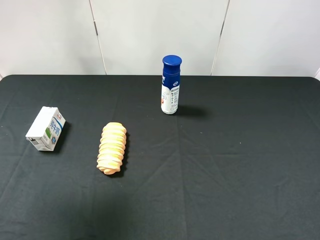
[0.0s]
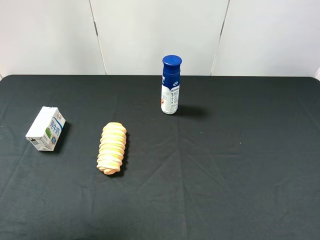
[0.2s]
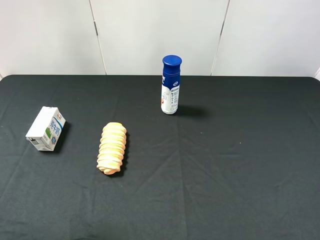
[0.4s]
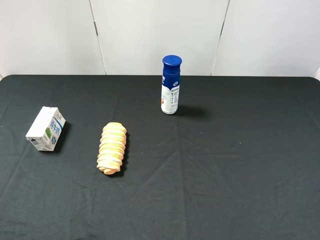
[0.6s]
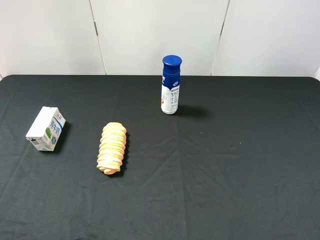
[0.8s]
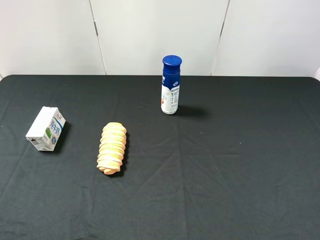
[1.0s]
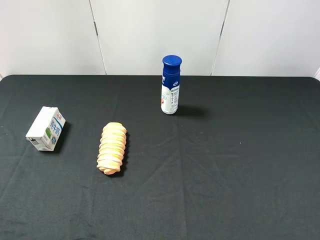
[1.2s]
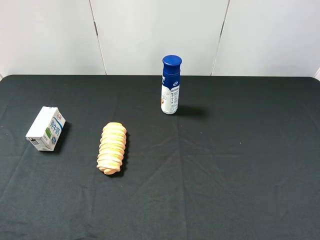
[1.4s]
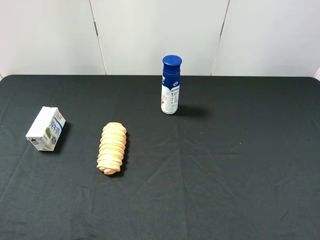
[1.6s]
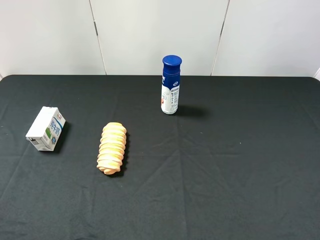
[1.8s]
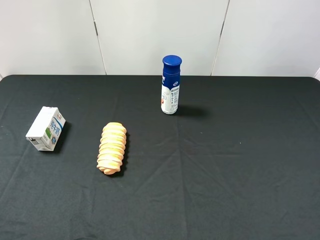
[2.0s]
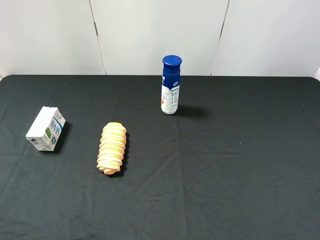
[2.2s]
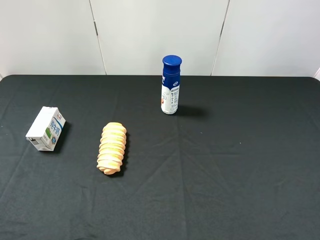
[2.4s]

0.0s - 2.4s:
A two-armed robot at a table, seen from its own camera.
Task of the whole recording: use the right gripper to pick up the item and transfer it from the right gripper to the left gripper.
0.0s - 1.2s: The left gripper goes roughly 20 cm backward and downward.
1.2s - 2.4s: Neither gripper changes place.

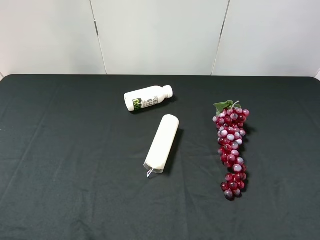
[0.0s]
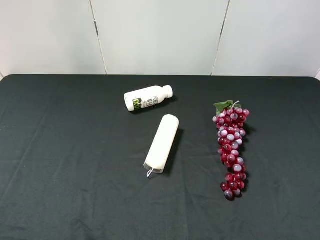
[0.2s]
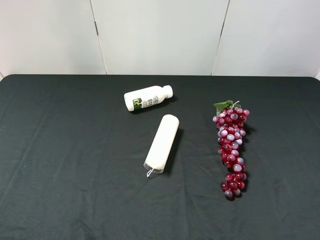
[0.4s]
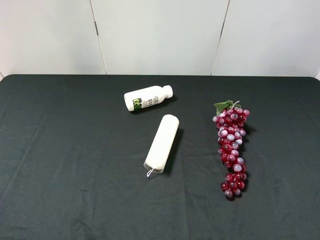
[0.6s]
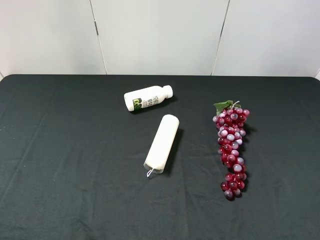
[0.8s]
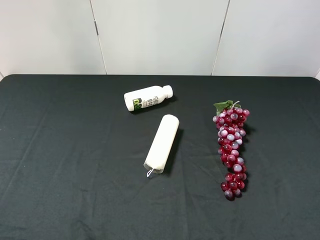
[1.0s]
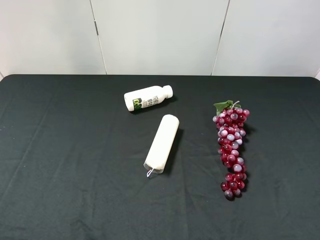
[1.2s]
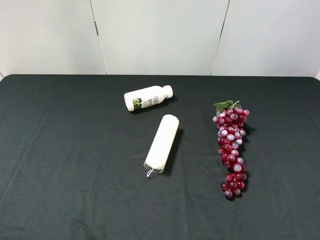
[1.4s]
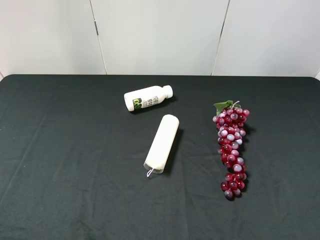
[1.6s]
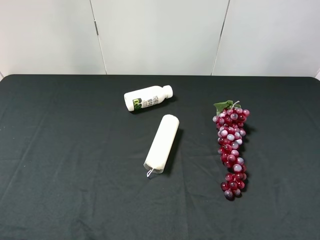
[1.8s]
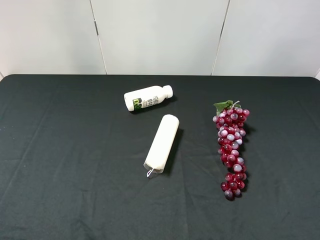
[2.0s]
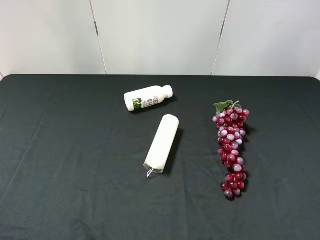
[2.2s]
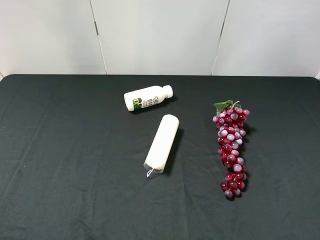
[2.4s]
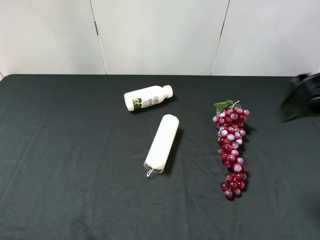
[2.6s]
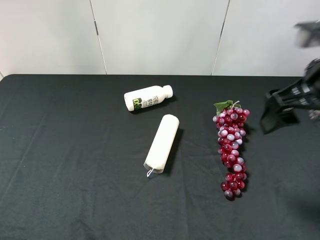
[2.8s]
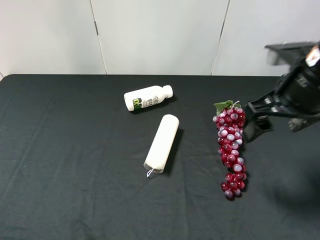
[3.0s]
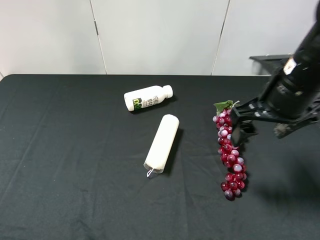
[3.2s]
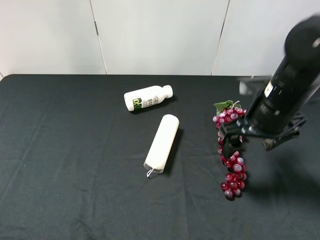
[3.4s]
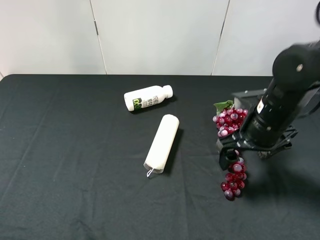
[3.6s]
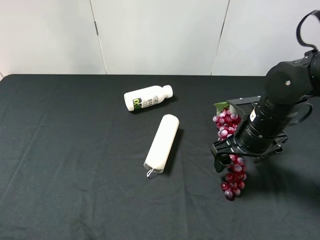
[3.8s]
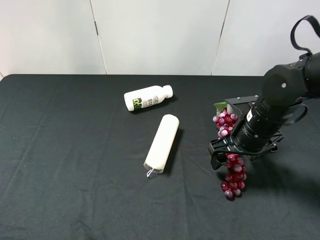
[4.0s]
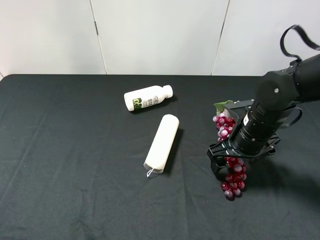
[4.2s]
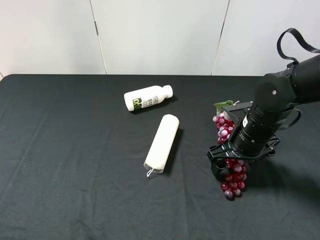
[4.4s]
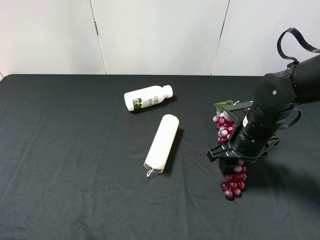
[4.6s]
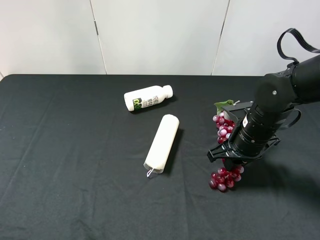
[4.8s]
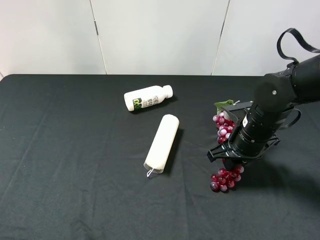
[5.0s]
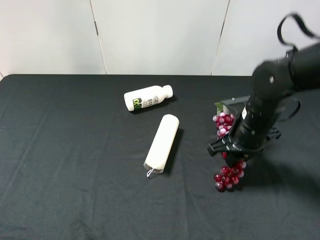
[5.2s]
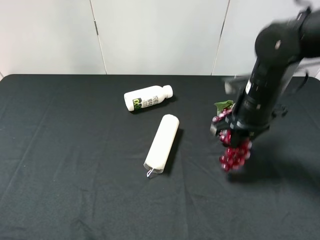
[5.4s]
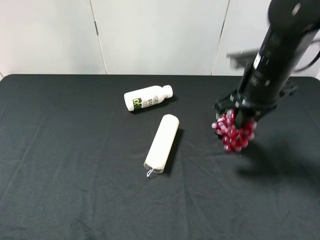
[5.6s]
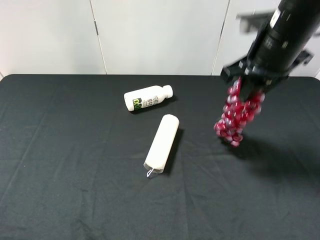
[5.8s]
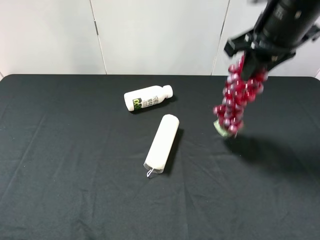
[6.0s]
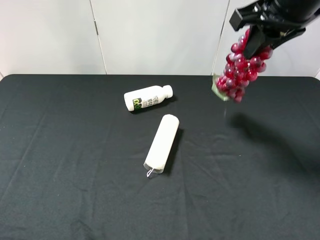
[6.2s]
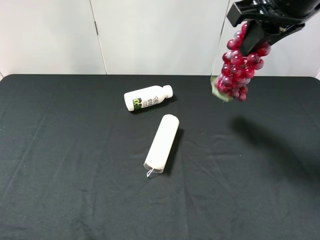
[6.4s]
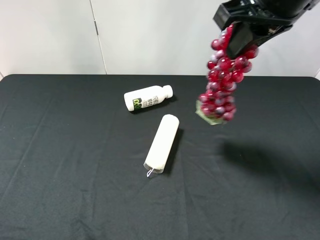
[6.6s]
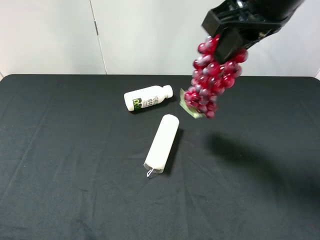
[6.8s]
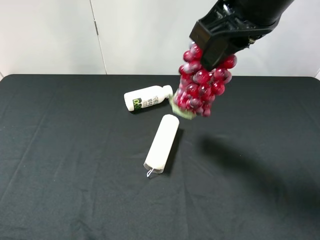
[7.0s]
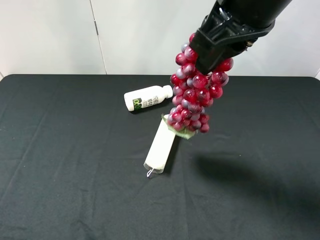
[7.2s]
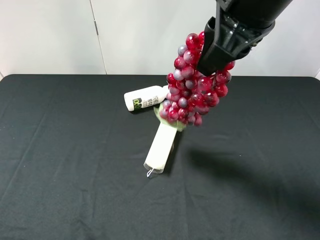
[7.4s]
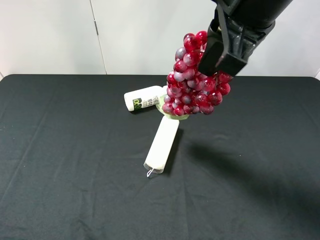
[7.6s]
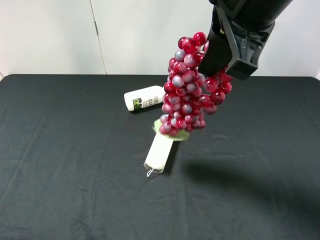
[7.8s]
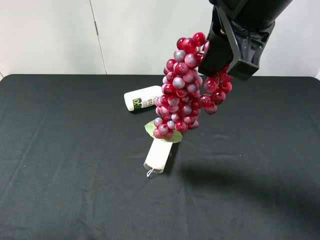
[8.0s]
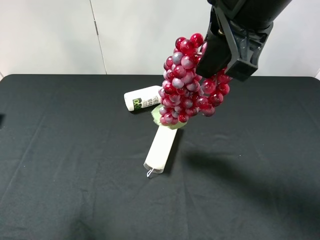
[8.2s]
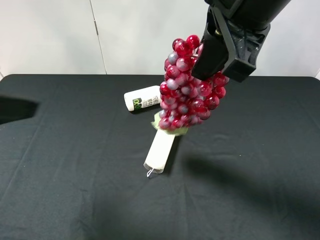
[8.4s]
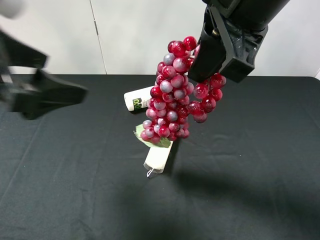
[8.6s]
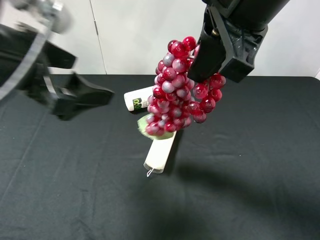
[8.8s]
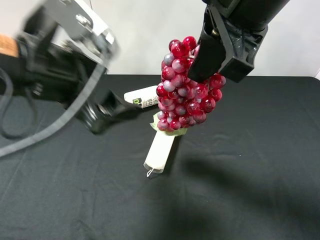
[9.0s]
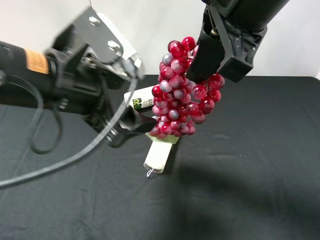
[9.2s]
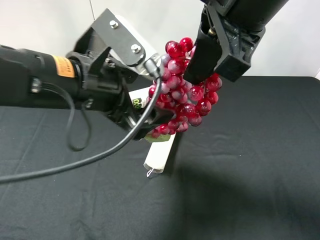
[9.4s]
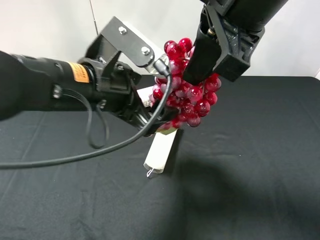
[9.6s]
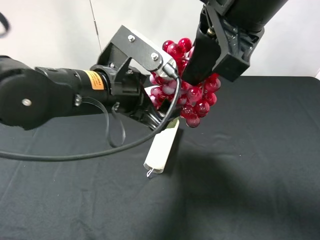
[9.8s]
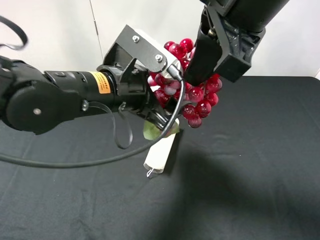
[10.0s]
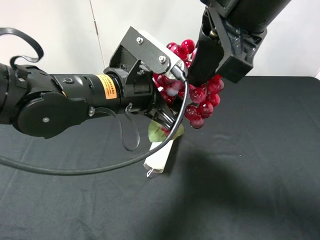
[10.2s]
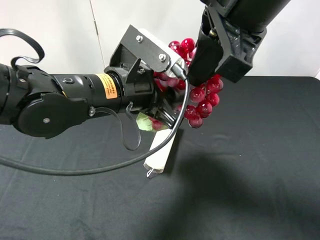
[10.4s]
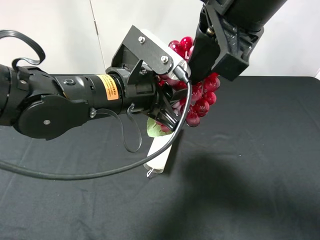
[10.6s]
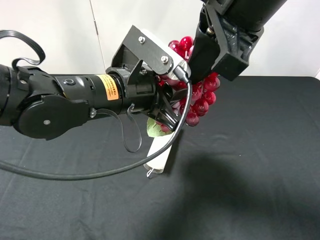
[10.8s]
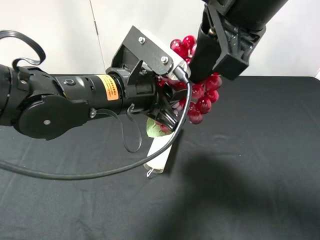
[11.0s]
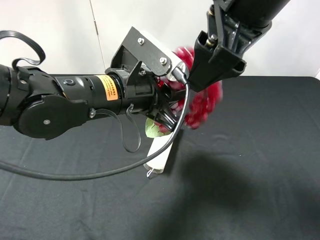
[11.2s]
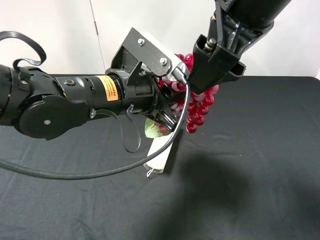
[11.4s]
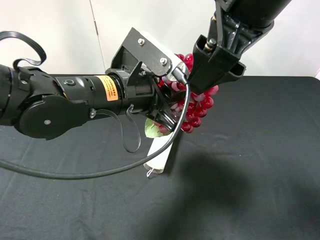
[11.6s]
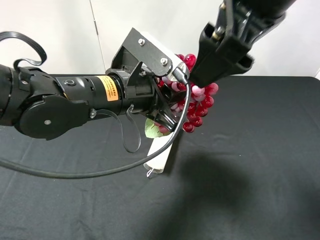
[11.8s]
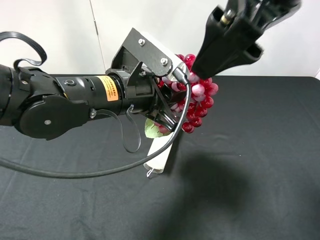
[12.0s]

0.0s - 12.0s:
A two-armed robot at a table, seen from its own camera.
Task of the whole recording: use the right gripper to pick up the item and transfer it from the right gripper to the left gripper.
Step, 0.0s - 5.0s: Use the right gripper to grab the grape on the right side of the table.
Step, 5.2s - 11.4s: Pass the grape to the left gripper.
0.0s - 1.6s: Neither gripper changes place.
1.6s - 3.0s: The right gripper moves forward and to the left, approximately 25 cm.
3.0s - 4.4s: The right gripper is displaced downward by about 15 cm.
4.4s - 6.0s: The right gripper heads upward, covering approximately 20 cm, and closes up.
6.0s - 7.6s: The right gripper is displaced to the left and backward by approximately 10 cm.
7.6s - 9.0s: The left gripper travels to the right and forward by about 25 cm.
9.0s - 10.4s: The left gripper shifts some 10 cm to the right and downward, and closes up.
10.4s - 12.0s: The right gripper opens its fingers.

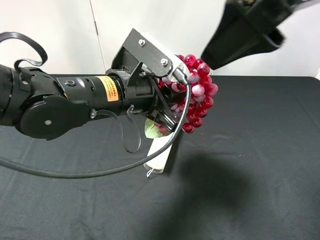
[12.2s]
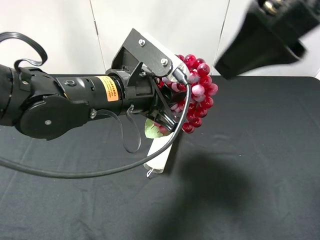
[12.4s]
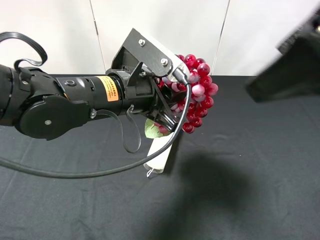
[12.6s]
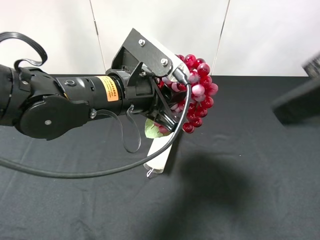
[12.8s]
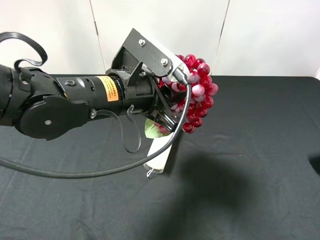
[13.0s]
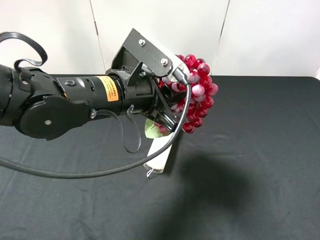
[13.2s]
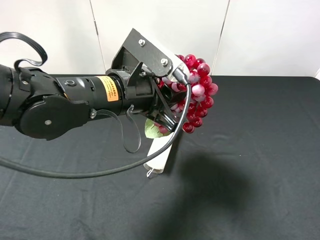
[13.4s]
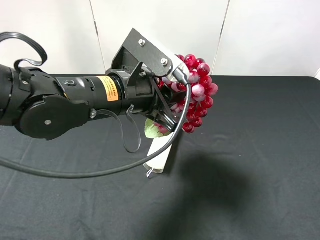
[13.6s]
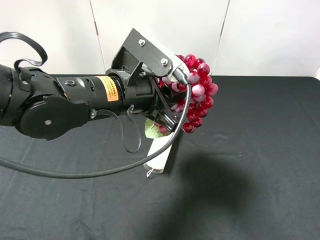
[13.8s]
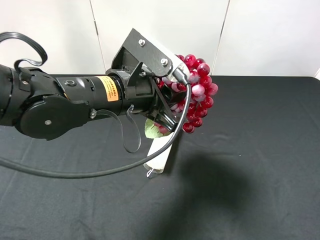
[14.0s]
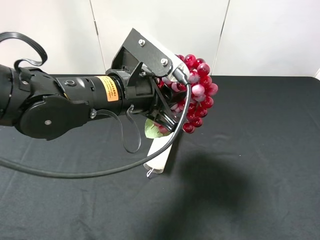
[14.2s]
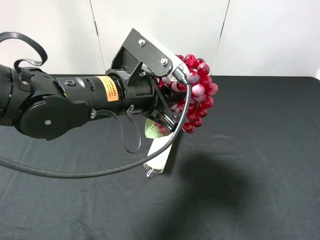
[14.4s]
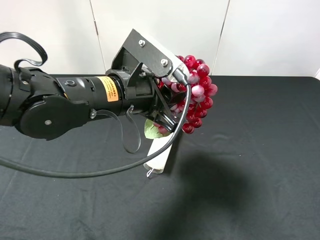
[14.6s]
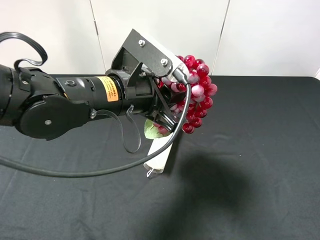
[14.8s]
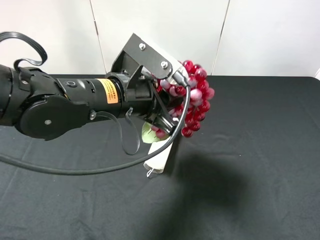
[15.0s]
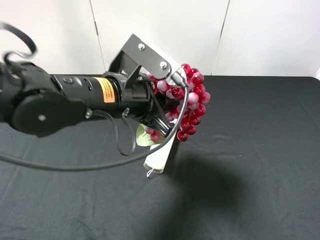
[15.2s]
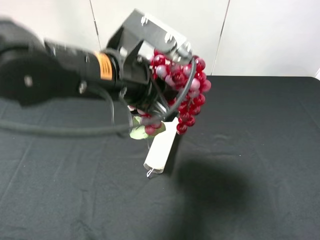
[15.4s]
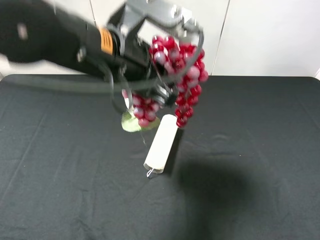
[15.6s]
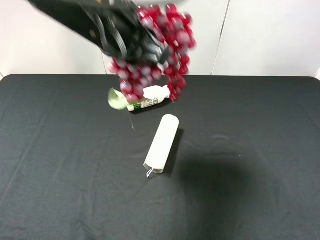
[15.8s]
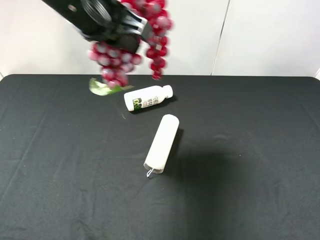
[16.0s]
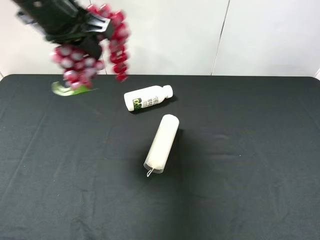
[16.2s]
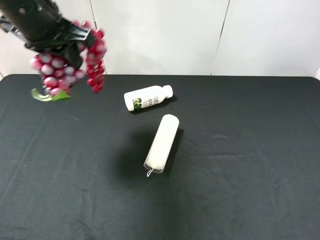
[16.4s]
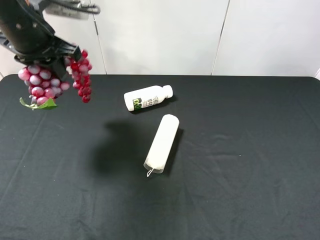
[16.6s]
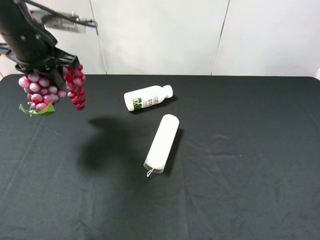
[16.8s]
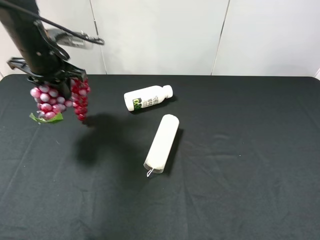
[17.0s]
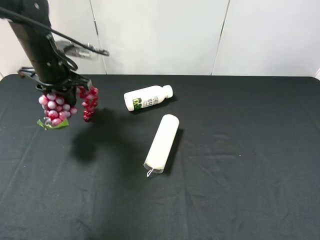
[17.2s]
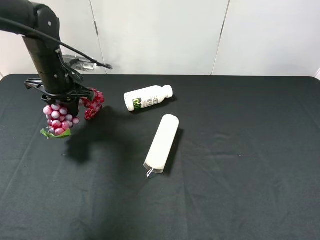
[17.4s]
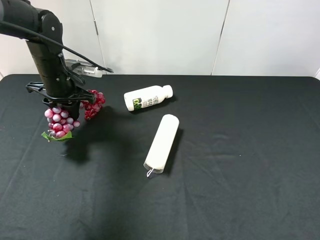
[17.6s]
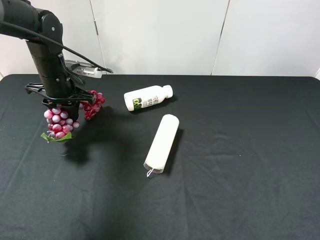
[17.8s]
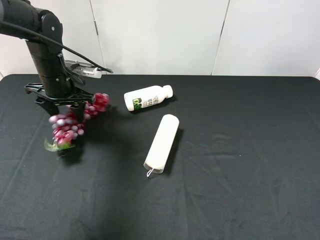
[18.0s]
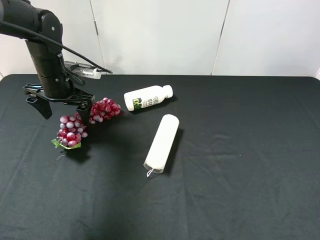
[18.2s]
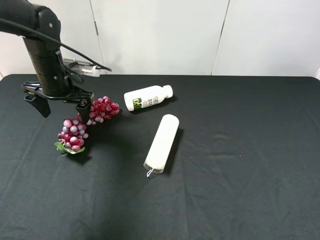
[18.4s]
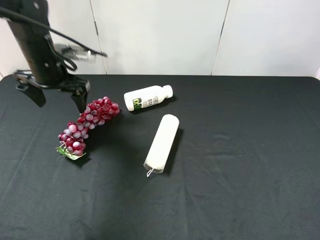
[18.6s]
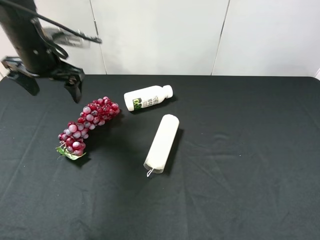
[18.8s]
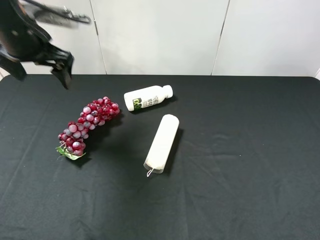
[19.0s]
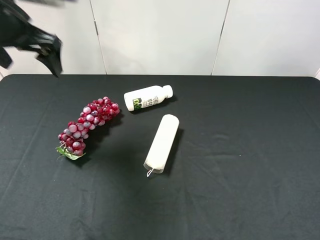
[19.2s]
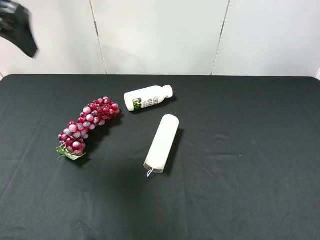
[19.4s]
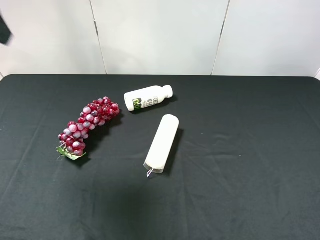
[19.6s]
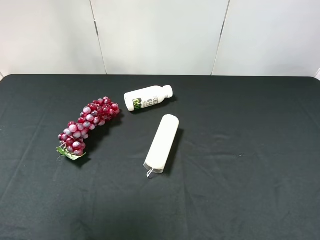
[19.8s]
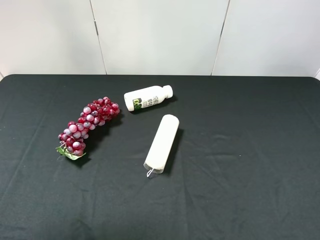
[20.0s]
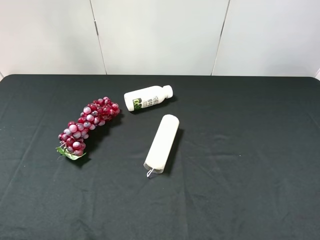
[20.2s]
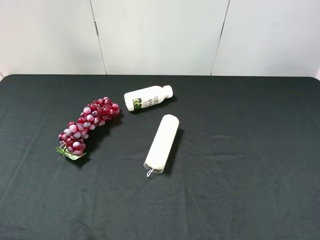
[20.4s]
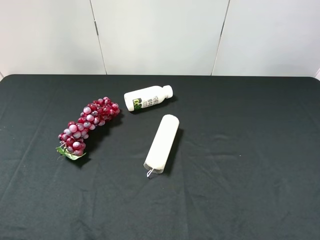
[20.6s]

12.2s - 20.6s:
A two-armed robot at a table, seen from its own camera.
Task of the whole recording: use the right gripper to pick up the item and transfer it from the right gripper to the left gripper.
Step, 12.2s - 18.0s: The left gripper places grape on the left side of the table.
12.2s - 13.6s: The right gripper travels to the right, backward and downward by some 25 cm.
15.0s - 16.4s: The left gripper goes approximately 20 cm to the left, upward and forward.
16.4s - 17.8s: The left gripper goes about 15 cm downward and forward.
17.8s - 19.2s: The left gripper heads upward, covering roughly 15 cm, and opens its fingers.
19.2s - 20.6s: The left gripper goes roughly 30 cm backward.
